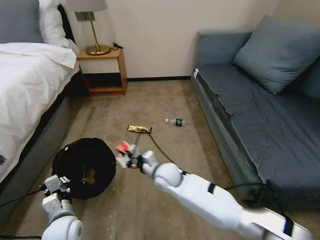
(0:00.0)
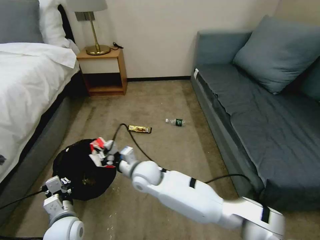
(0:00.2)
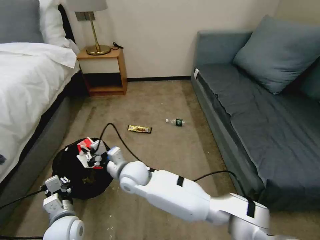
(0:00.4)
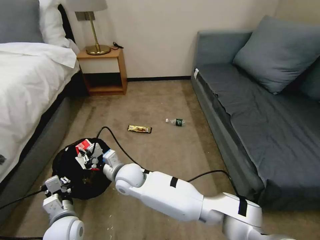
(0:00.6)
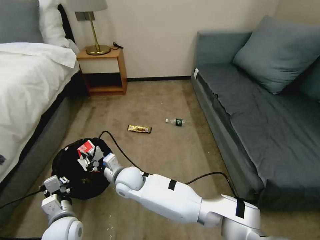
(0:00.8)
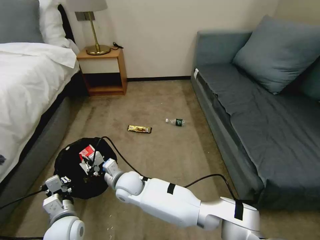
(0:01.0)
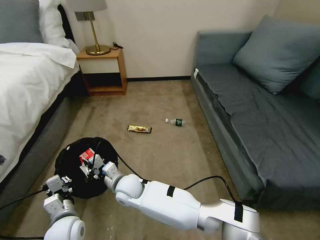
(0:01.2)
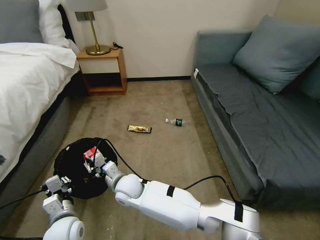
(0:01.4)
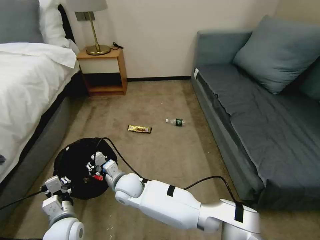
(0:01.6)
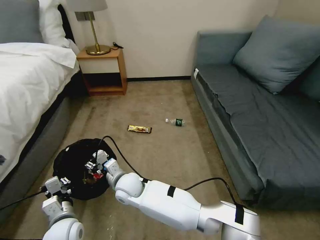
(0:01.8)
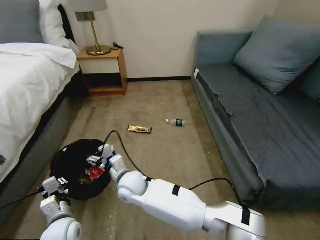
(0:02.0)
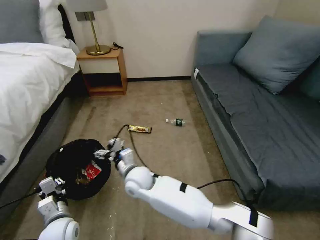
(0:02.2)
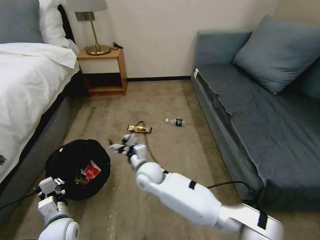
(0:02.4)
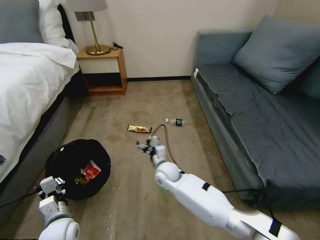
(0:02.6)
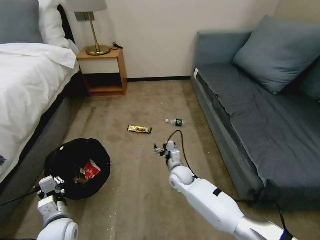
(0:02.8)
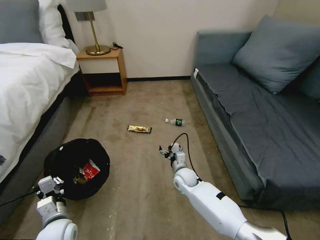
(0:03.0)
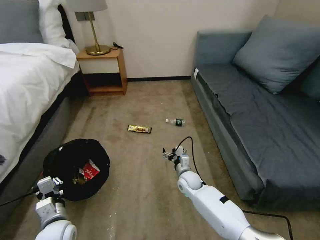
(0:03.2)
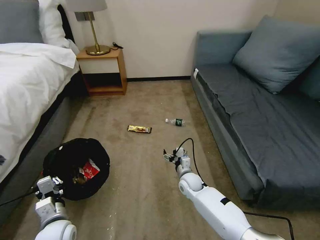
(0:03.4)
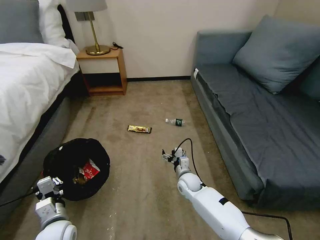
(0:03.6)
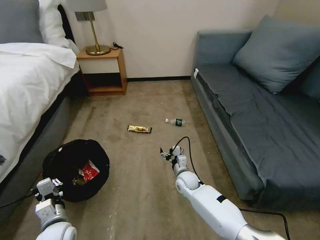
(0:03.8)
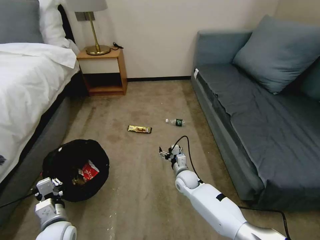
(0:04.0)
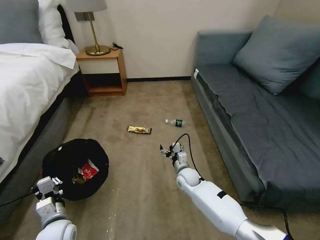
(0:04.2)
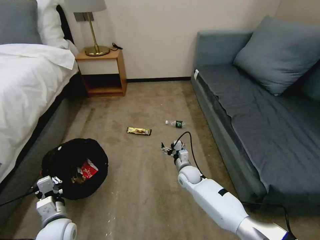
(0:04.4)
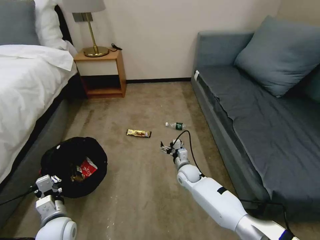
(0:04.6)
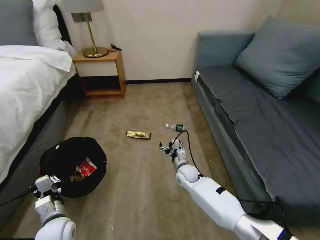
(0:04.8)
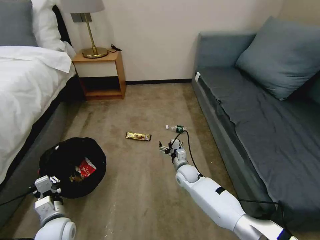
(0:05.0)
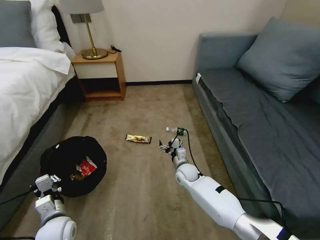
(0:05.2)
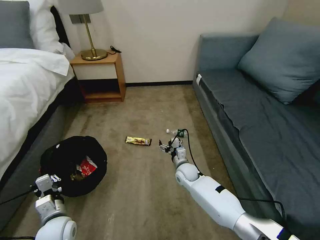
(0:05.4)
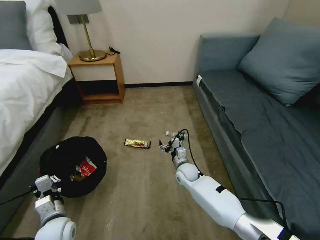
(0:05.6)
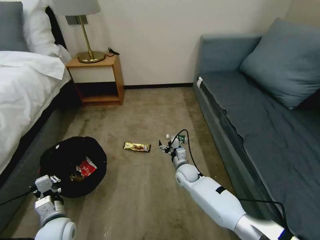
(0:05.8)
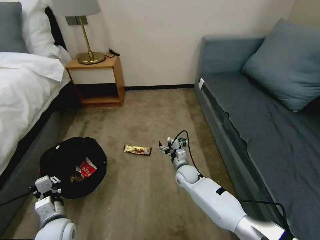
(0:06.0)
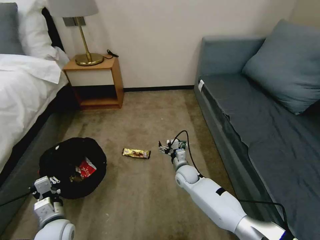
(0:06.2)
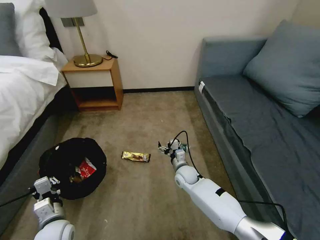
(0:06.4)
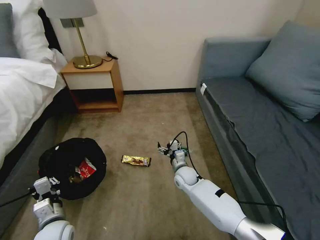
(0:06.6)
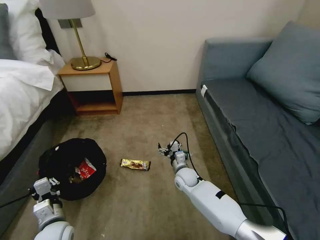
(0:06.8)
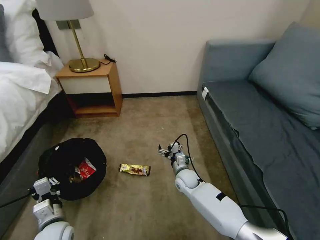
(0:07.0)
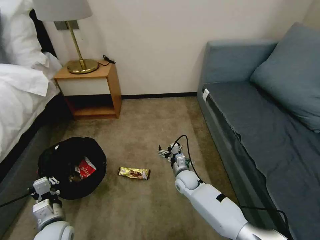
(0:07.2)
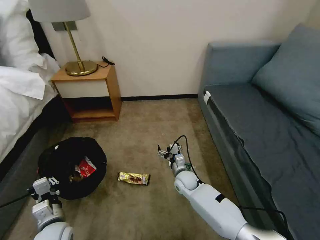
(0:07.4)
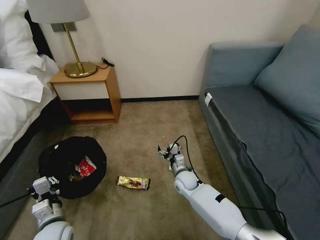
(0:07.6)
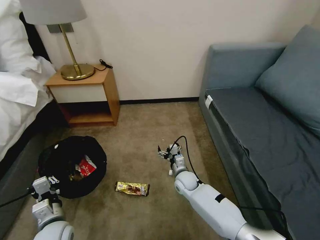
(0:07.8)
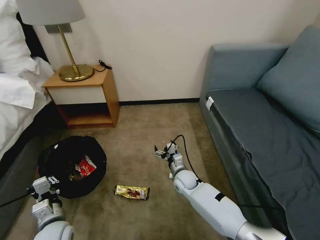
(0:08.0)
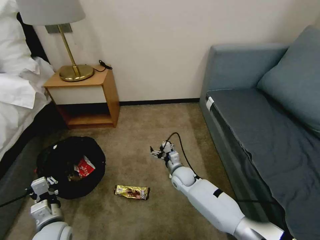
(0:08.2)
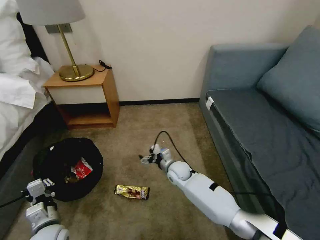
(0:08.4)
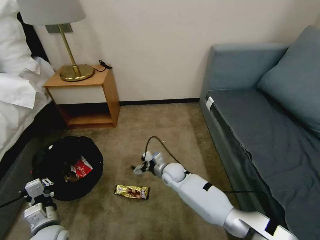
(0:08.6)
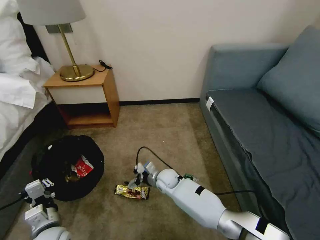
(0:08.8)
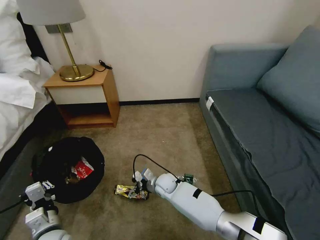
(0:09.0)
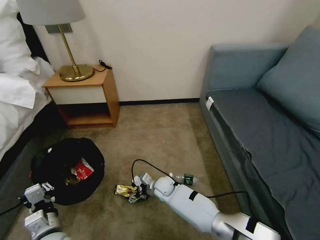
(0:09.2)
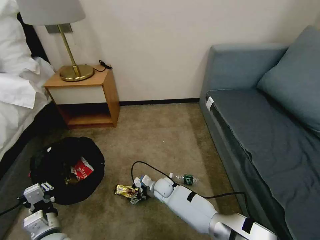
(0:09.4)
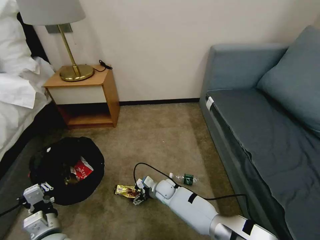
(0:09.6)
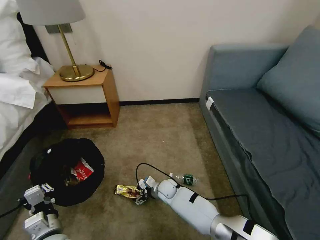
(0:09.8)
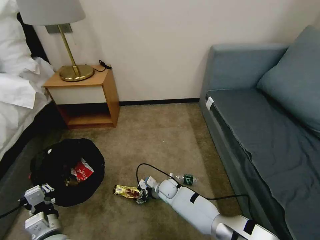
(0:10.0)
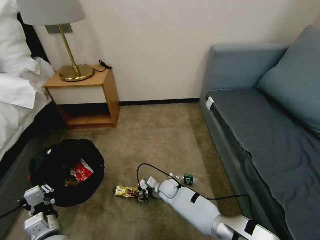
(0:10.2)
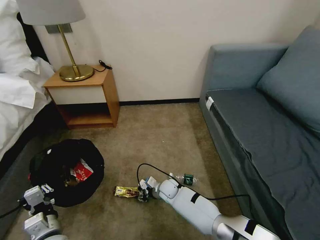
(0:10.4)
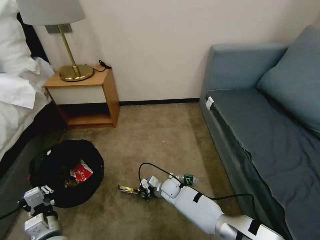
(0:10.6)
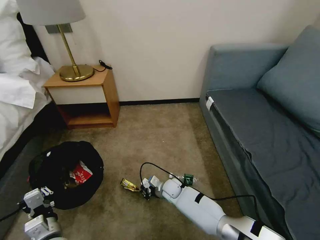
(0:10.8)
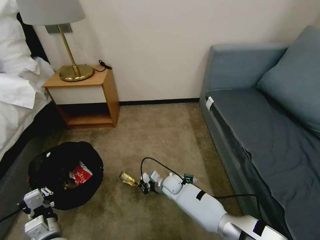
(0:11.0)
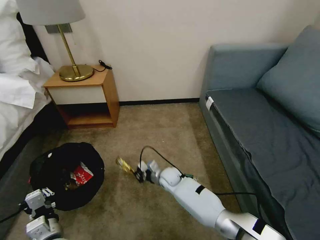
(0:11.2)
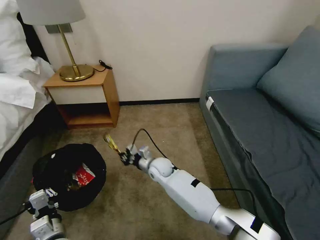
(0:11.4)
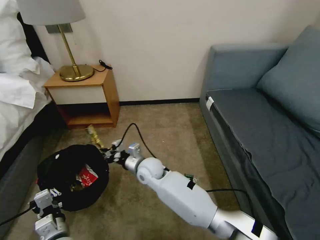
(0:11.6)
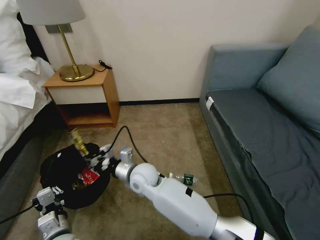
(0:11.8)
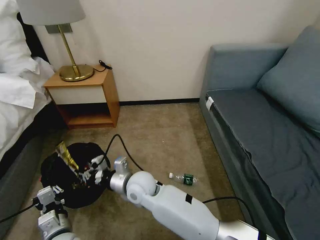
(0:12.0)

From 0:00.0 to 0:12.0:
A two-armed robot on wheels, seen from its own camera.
Task of the whole recording: Pick up the trash bin, then pick up the garbage on the floor and place it into the trash bin.
From 0:00.0 to 0:01.6: The right gripper goes about 15 cm to the left.
From 0:01.6 to 0:03.0: The right gripper is displaced to the right and downward by roughly 25 cm, and opens.
From 0:03.0 to 0:04.4: The grippers make only small movements.
From 0:07.6 to 0:09.0: The right gripper goes roughly 10 cm to the left.
From 0:09.0 to 0:10.4: The right gripper closes up.
From 0:10.4 to 0:12.0: The right gripper heads upward and to the left, covering some 25 cm.

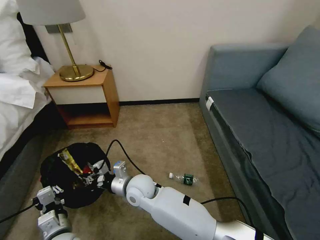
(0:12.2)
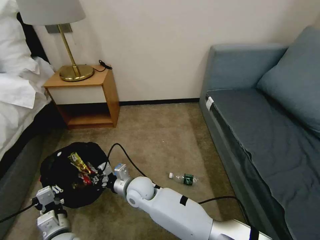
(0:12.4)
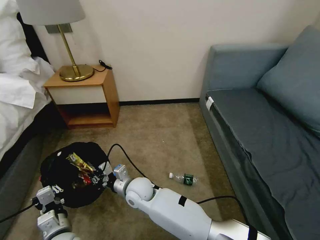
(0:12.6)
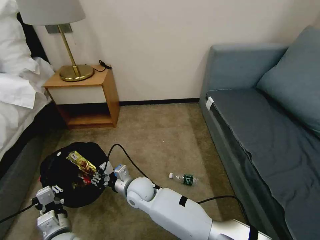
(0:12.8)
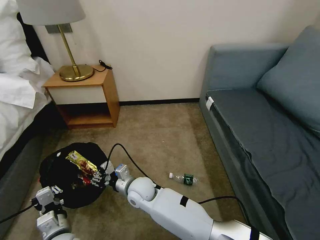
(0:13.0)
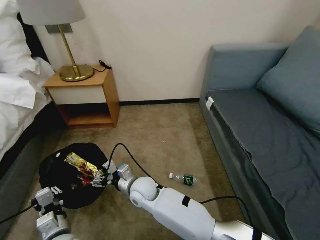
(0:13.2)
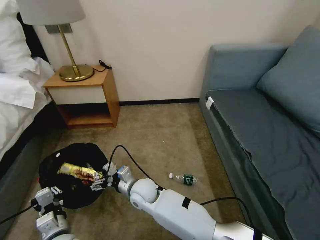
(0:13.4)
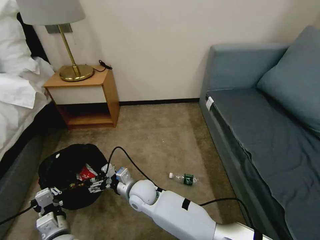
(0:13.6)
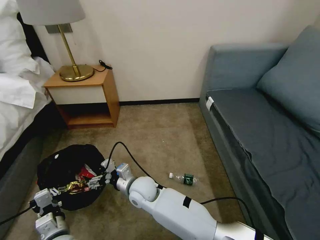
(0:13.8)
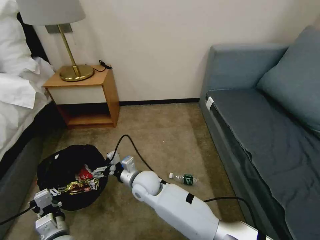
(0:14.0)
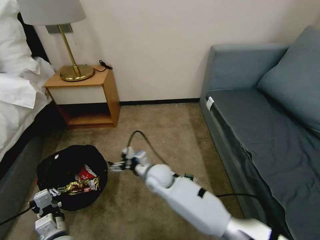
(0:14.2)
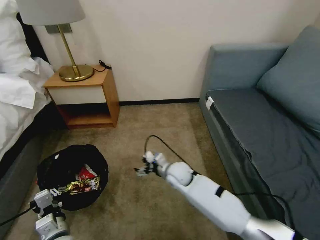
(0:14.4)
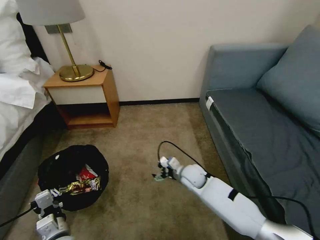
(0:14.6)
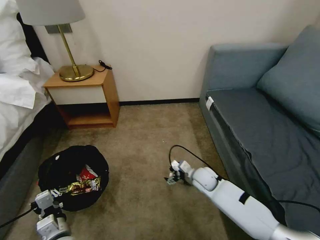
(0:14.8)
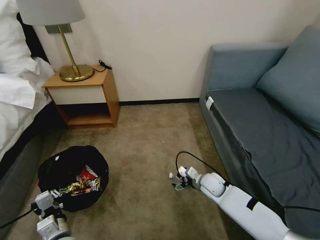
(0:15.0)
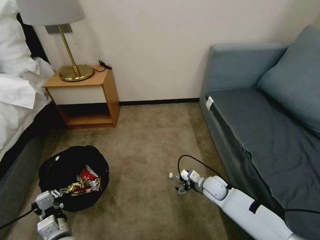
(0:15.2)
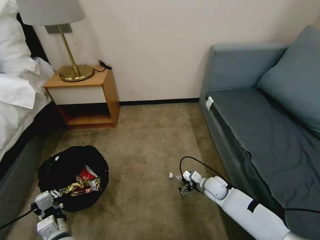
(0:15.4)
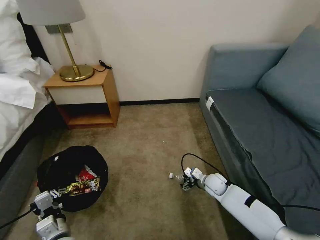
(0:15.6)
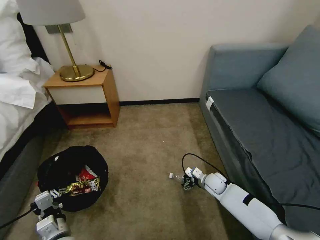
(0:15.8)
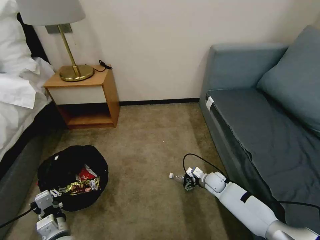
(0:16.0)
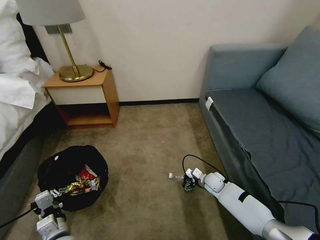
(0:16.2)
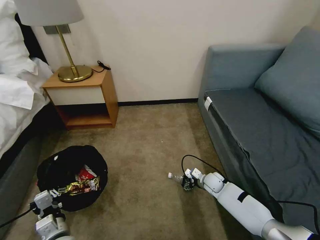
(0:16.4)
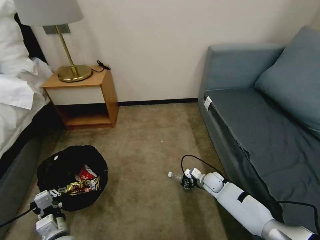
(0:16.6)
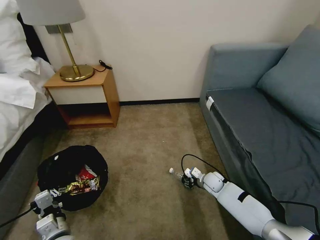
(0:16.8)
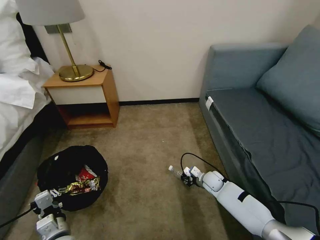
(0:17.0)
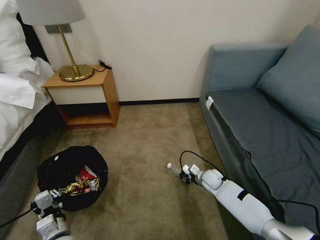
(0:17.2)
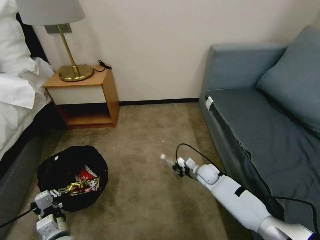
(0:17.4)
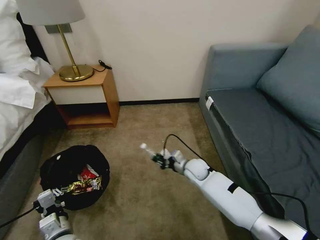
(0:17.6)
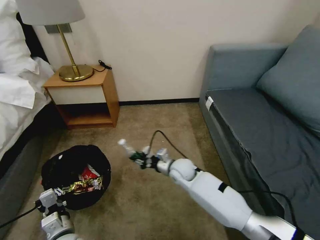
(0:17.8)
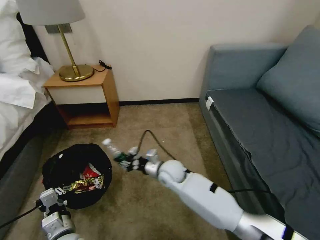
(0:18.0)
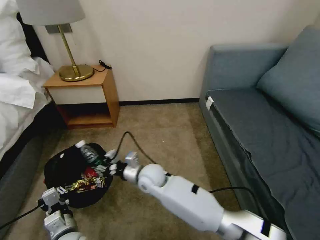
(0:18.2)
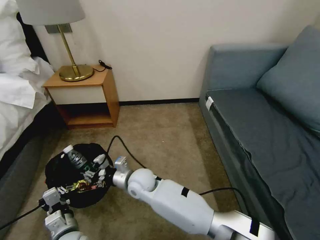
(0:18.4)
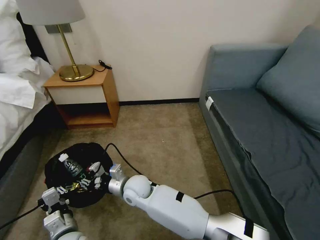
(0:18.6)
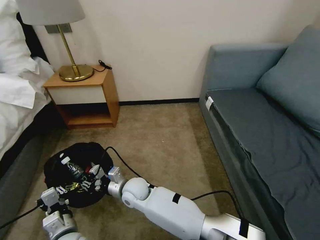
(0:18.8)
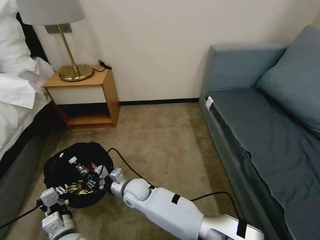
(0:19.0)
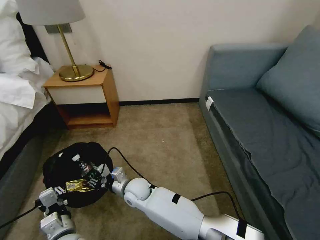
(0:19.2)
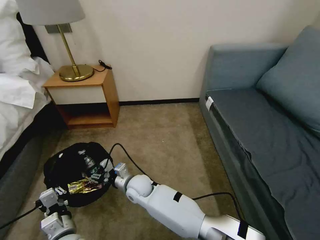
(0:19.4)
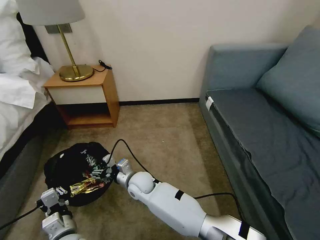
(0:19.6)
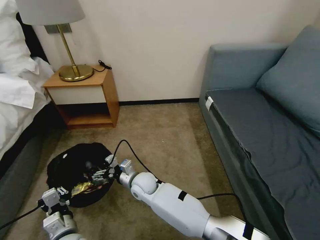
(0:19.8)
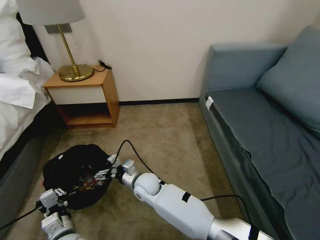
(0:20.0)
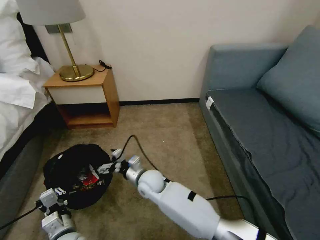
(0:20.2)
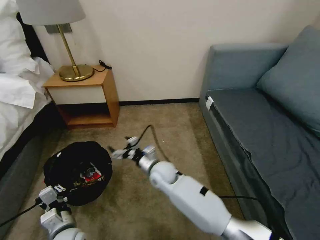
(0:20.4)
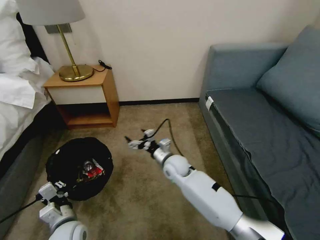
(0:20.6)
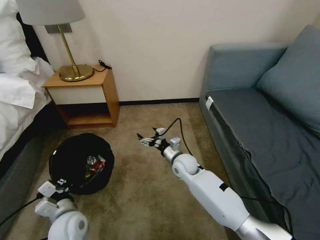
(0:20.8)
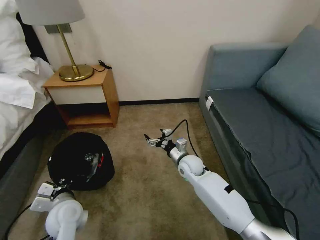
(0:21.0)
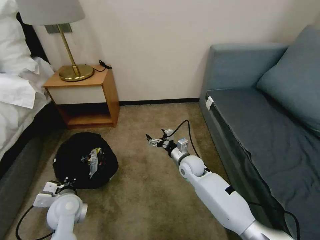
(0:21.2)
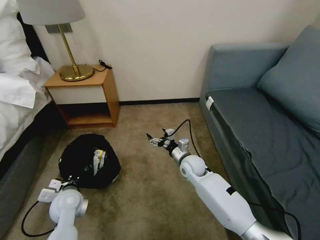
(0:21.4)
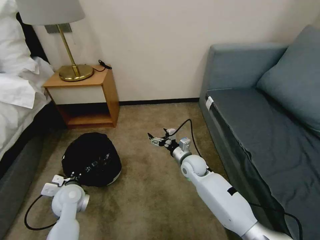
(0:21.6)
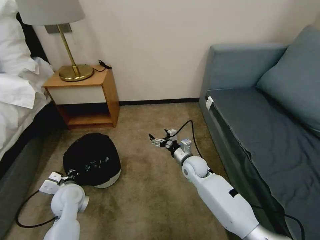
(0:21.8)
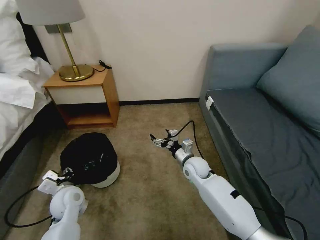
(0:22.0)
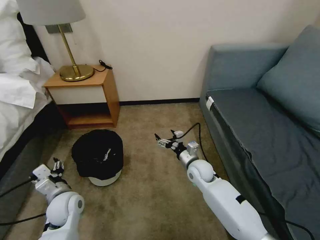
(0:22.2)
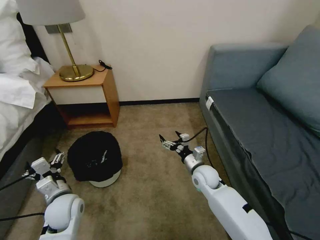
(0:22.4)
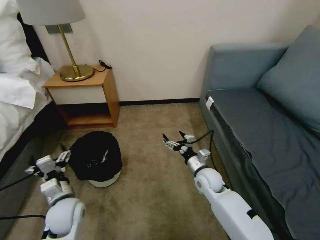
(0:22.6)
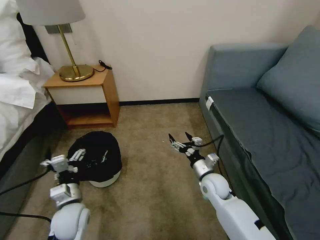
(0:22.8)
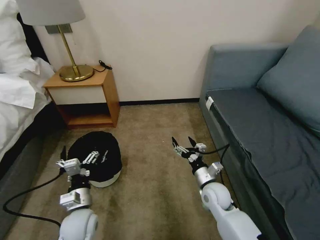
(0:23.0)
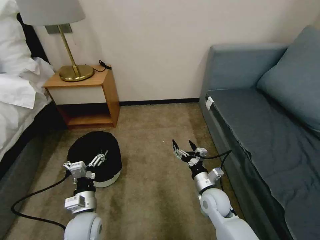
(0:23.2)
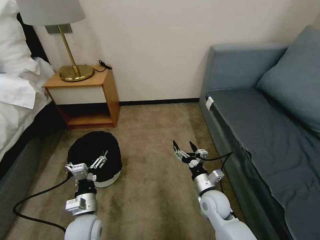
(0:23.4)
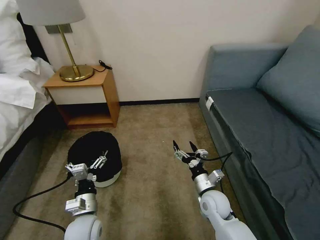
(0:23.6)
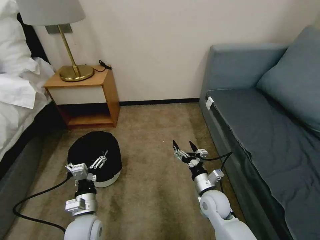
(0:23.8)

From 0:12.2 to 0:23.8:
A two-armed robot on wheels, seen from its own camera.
Task of the whole recording: Pick up the trash bin, then pick up the garbage on the floor and place it into the trash bin.
From 0:12.2 to 0:13.6: The right gripper opens.
From 0:13.6 to 0:15.0: The right gripper heads to the right, covering roughly 25 cm.
From 0:15.0 to 0:16.6: The right gripper goes about 5 cm downward.
From 0:16.6 to 0:18.0: The right gripper travels to the left and upward by roughly 25 cm, and closes its fingers.
From 0:18.0 to 0:19.4: The right gripper heads to the left, covering some 10 cm, and opens up.
From 0:19.4 to 0:21.0: The right gripper is displaced to the right by about 20 cm, and opens; the left gripper shifts about 10 cm forward.
From 0:21.0 to 0:22.4: The right gripper moves roughly 5 cm. Meanwhile the left gripper opens.
From 0:22.4 to 0:23.8: The right gripper shifts roughly 10 cm backward. Meanwhile the left gripper heads to the right and backward, covering some 10 cm.
